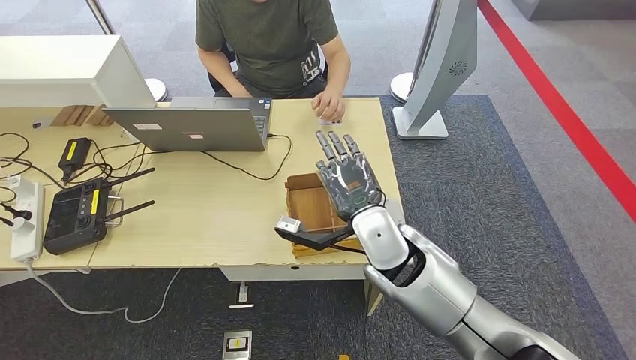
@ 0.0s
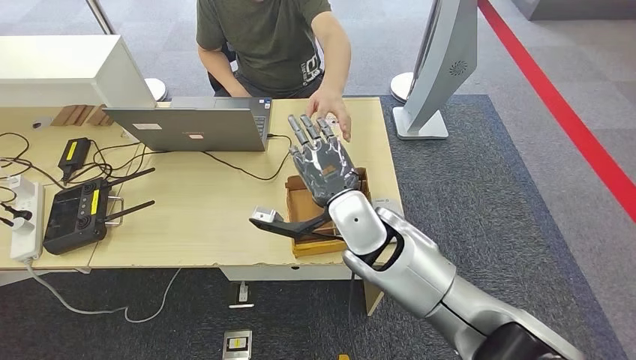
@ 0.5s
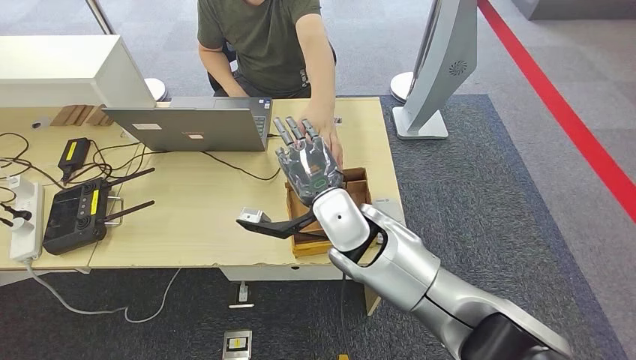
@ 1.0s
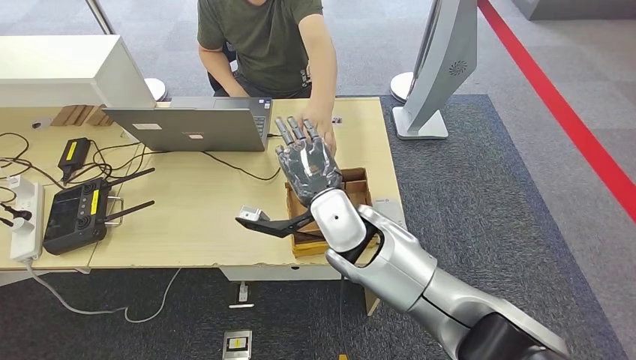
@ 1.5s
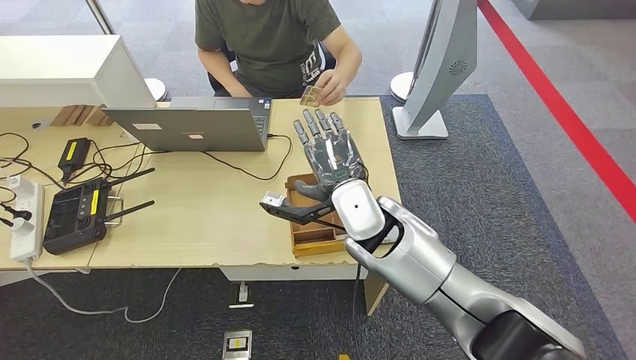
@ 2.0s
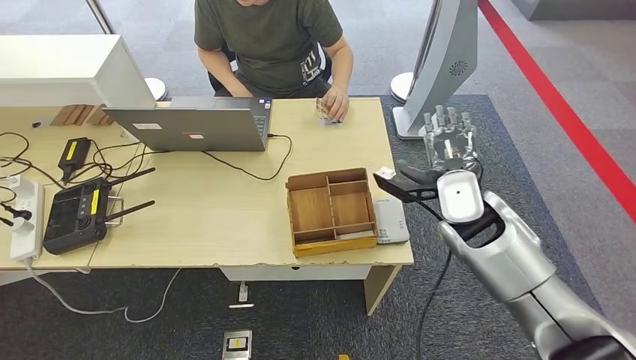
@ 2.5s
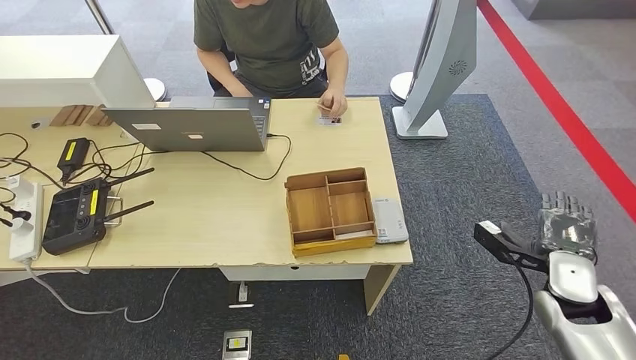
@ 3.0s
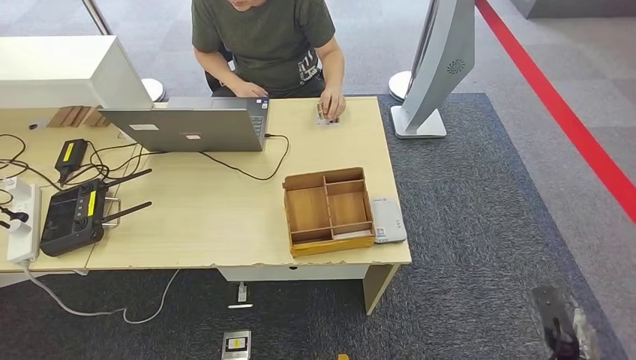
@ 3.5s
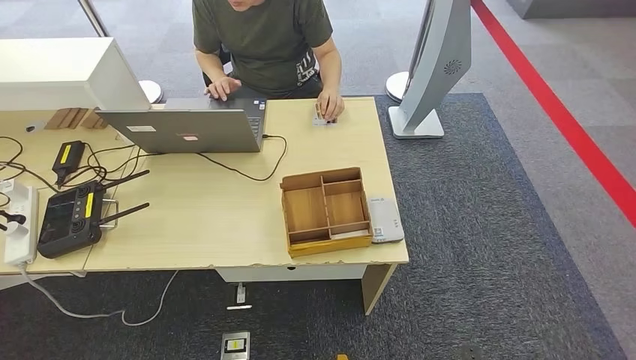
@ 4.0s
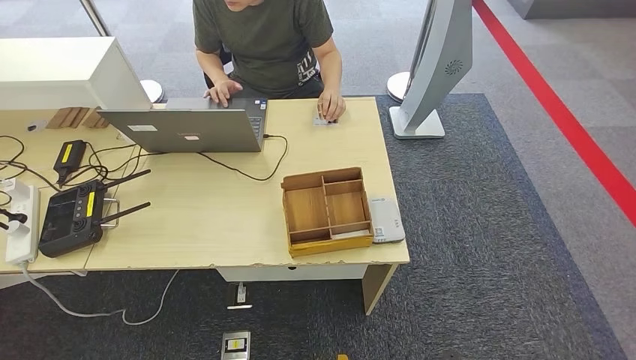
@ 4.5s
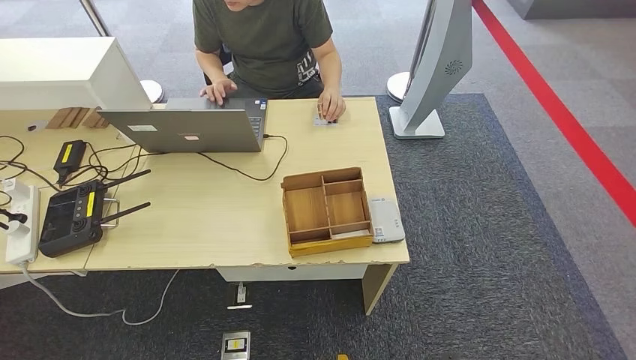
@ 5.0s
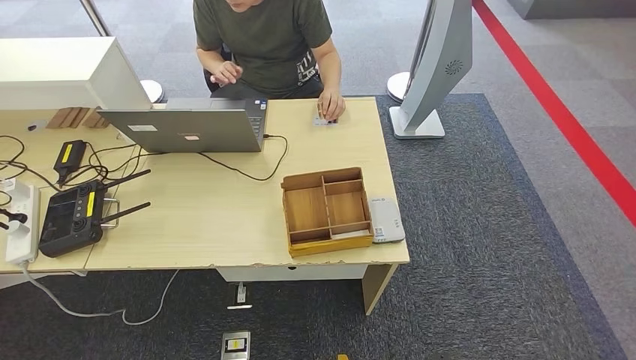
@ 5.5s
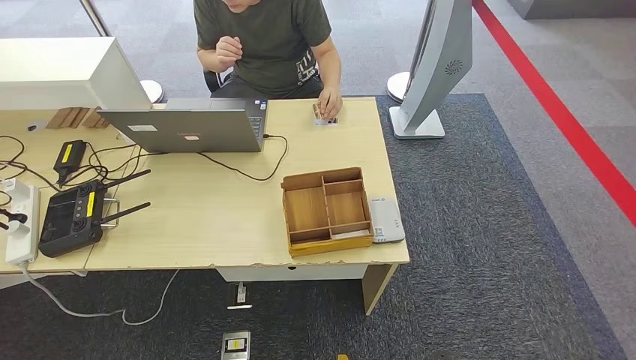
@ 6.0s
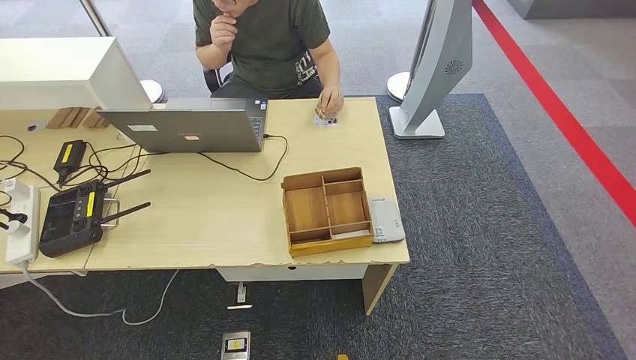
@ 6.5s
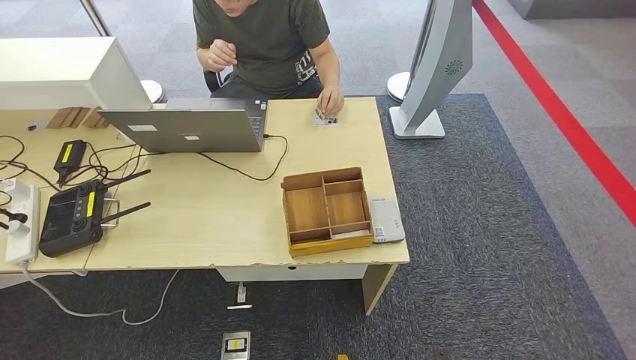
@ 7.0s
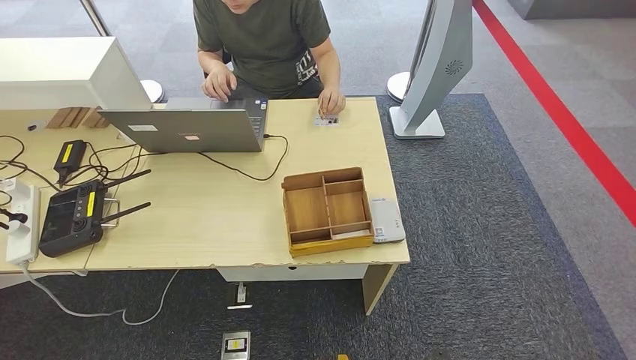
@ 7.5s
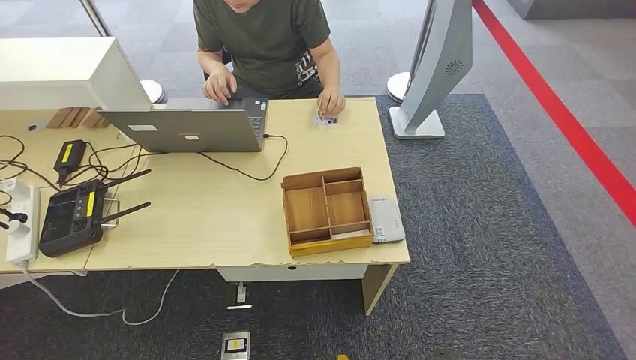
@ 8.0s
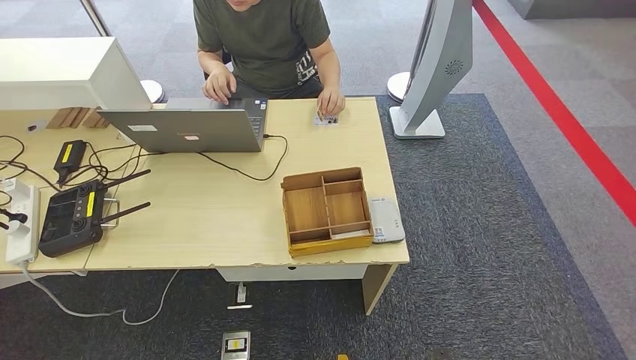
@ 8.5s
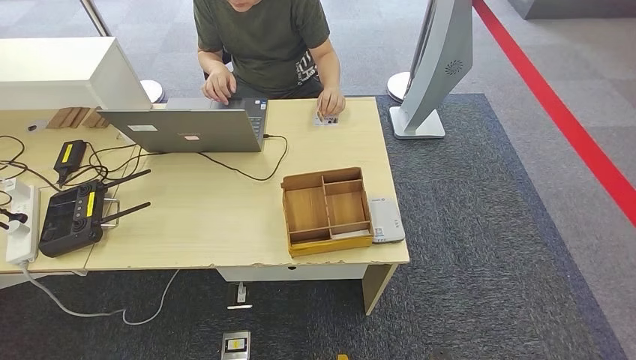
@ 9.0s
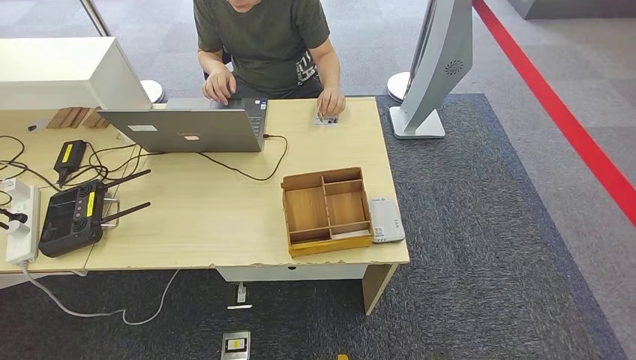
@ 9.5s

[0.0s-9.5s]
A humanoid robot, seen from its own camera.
Step, 0.0s to 9.5s: Hand the room key to the person.
0.0s to 2.0s: The right hand shifts by approximately 5 cm.
4.0s to 5.5s: The hands stay close to where they were, moving slightly.
